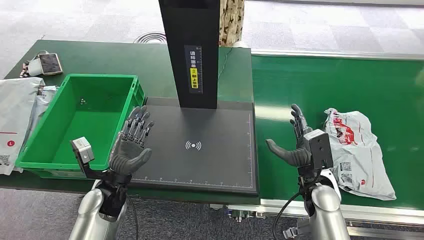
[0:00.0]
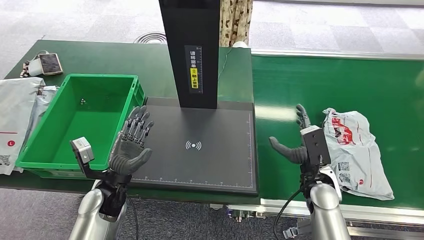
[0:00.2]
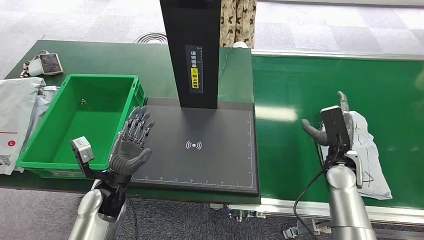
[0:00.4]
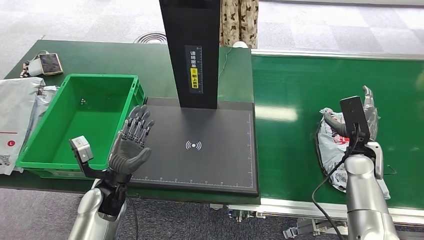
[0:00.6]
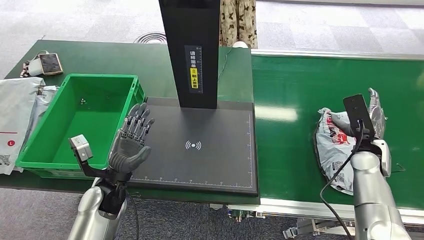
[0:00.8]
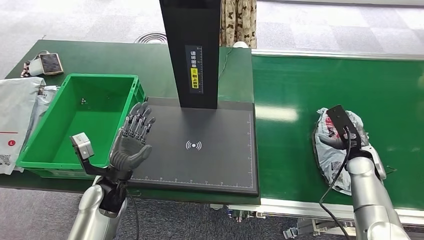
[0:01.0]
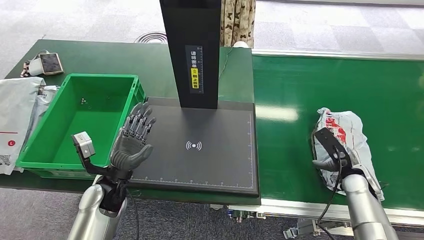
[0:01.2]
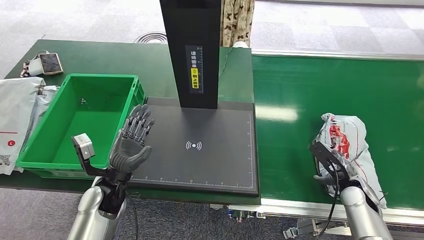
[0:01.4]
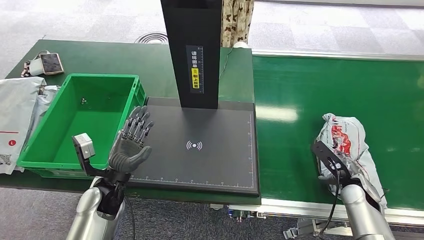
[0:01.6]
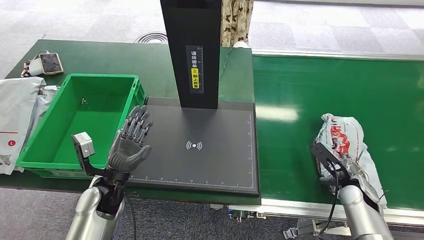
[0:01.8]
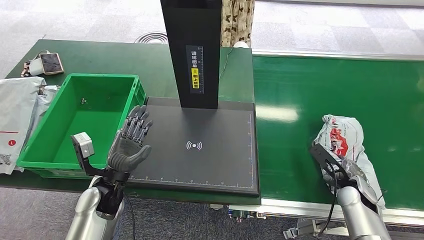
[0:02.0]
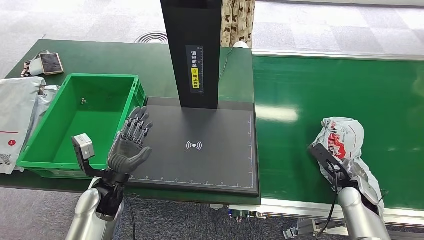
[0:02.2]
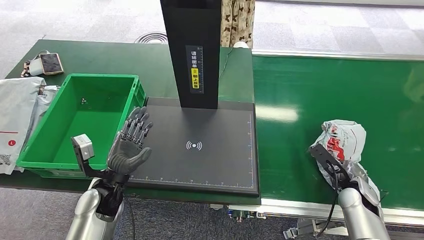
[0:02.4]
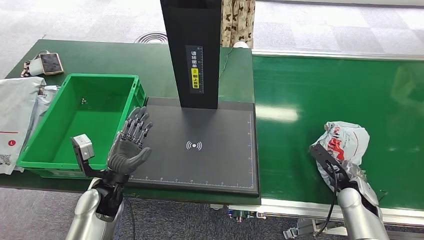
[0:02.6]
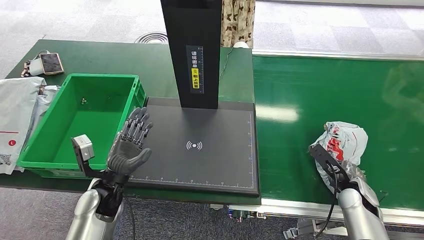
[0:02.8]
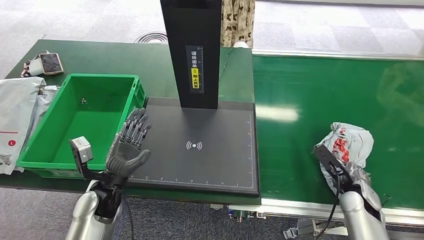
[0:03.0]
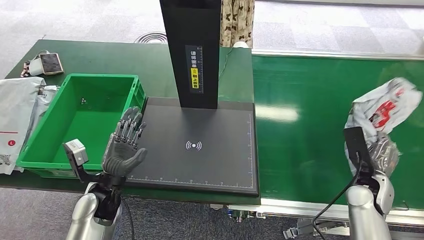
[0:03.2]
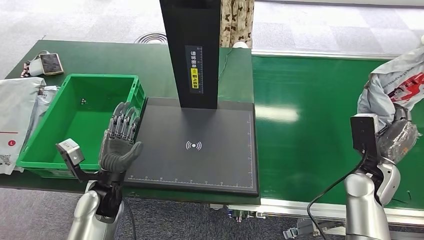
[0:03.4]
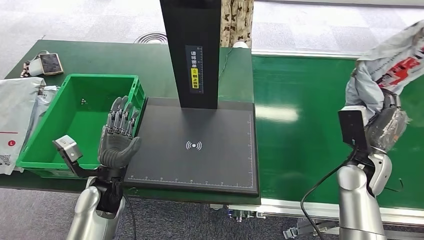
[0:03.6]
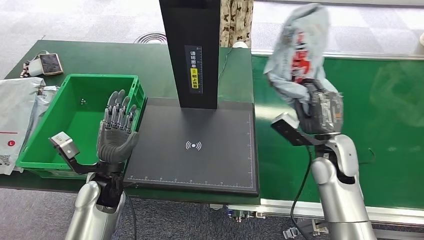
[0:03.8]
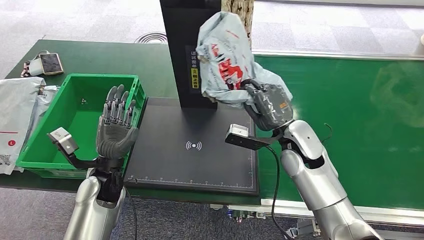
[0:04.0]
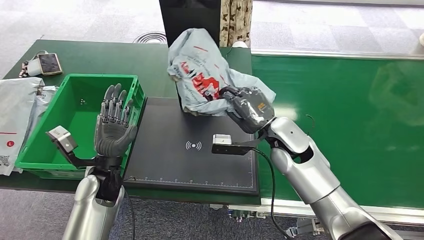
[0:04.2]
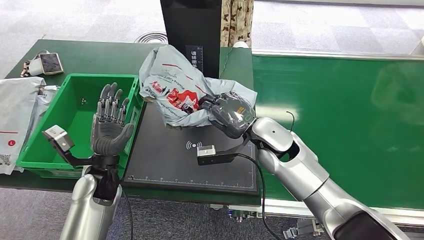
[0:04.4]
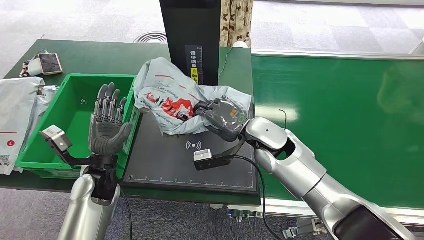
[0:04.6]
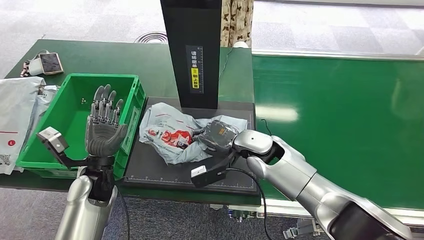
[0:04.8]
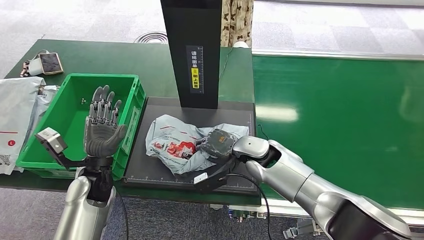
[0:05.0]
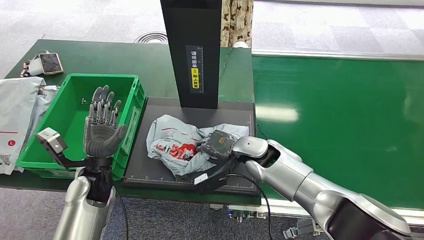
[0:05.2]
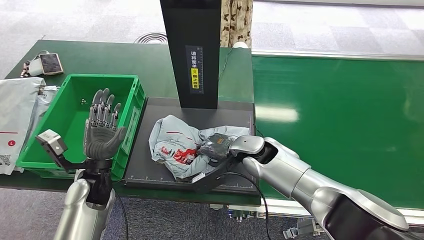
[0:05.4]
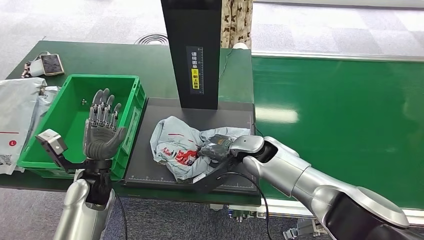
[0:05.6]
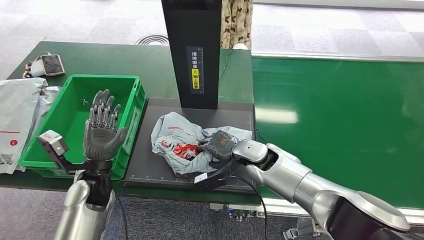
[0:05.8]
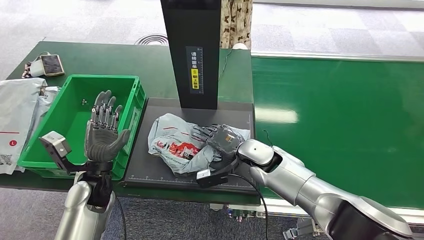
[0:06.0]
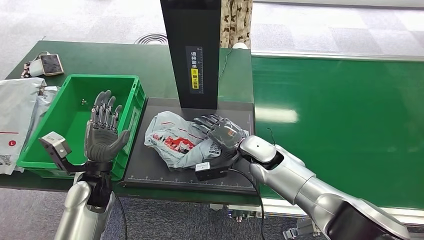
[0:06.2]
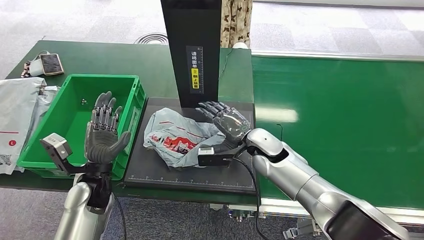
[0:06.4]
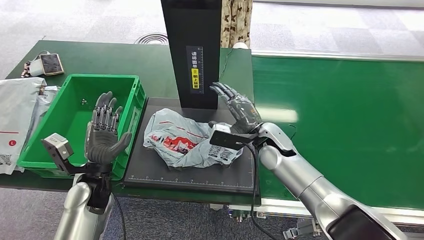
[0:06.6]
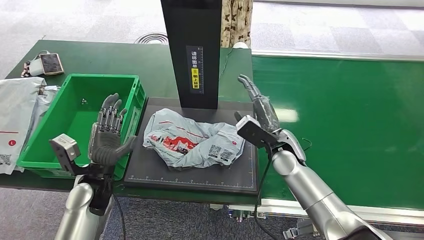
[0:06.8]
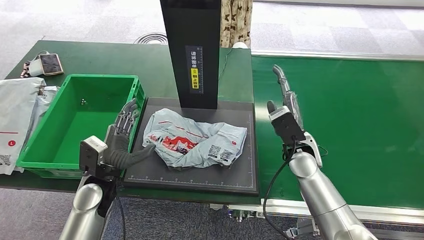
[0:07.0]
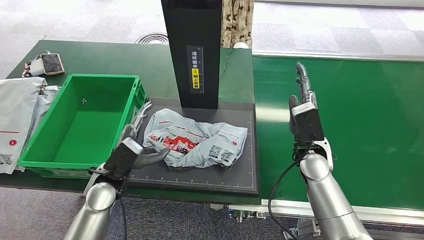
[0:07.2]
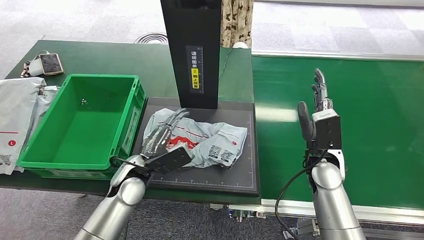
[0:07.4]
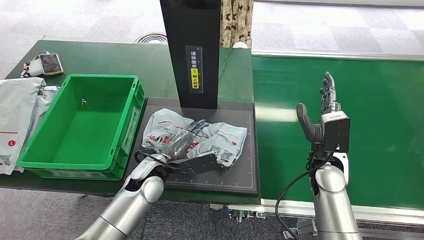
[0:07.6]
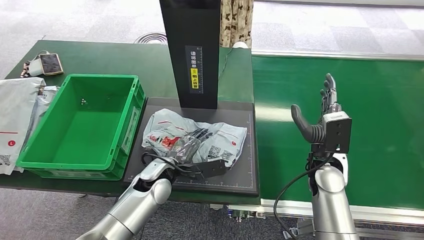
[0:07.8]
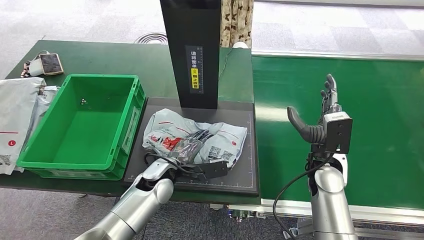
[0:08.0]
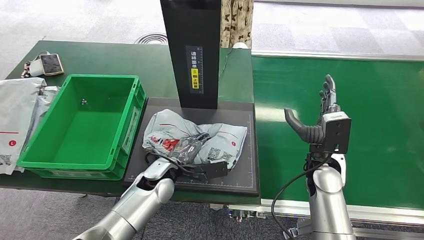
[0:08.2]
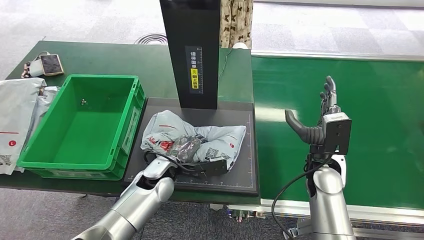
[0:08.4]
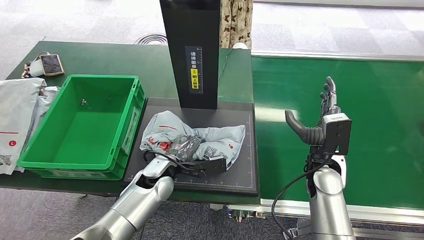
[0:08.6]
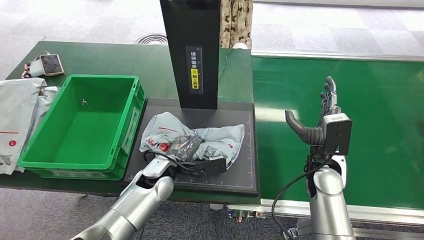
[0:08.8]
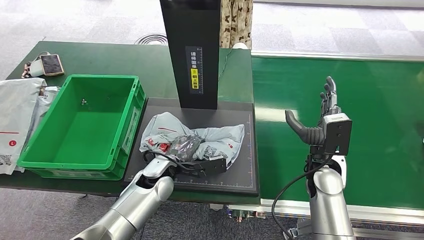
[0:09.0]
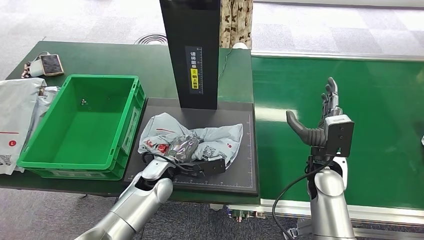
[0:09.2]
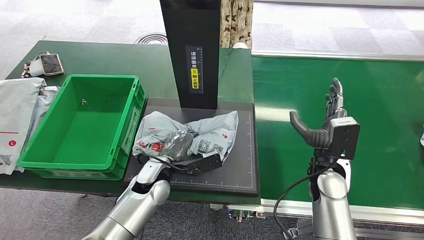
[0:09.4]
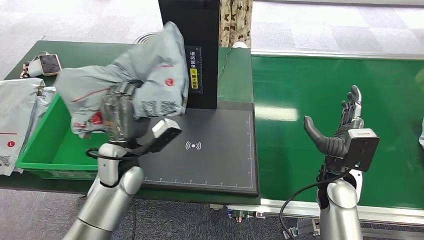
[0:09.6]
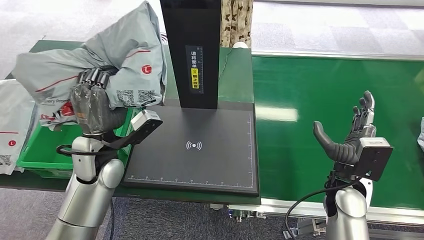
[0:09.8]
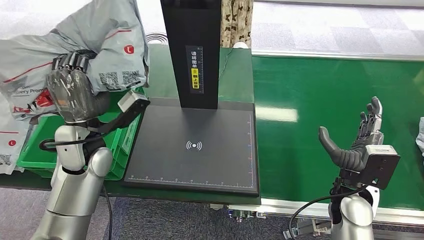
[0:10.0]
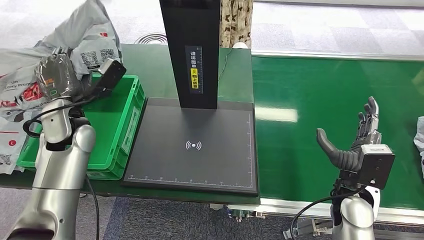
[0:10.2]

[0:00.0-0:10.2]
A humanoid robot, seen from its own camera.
Step, 0:00.0 to 0:03.6: Pick up the package from the conveyor belt.
Step, 0:03.8 to 0:06.8: Place the package onto the inbound machine.
Step, 0:07.2 to 0:09.6: Pick up the package from the inbound machine.
0:01.4 to 0:03.0: The hands make only small movements.
0:07.2 to 0:08.8: The left hand shifts roughly 10 cm to the right.

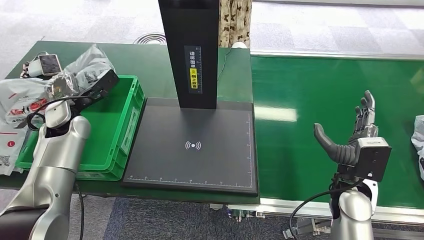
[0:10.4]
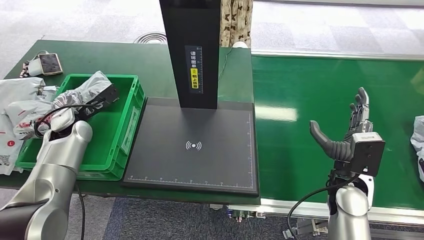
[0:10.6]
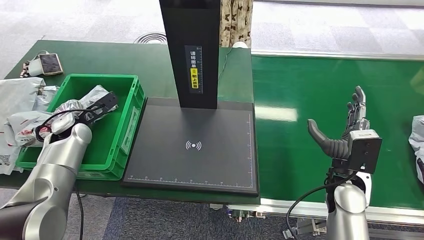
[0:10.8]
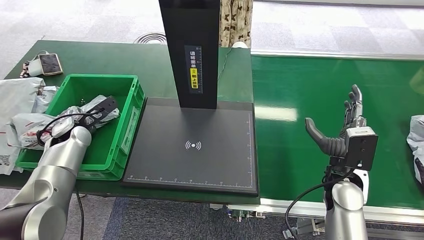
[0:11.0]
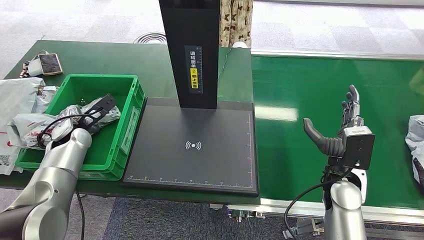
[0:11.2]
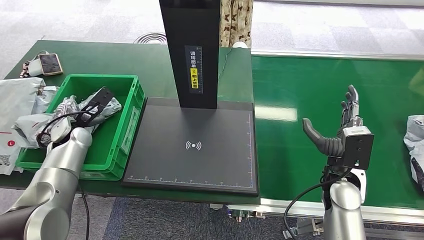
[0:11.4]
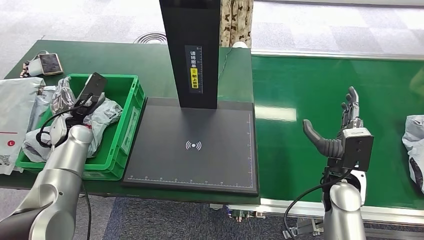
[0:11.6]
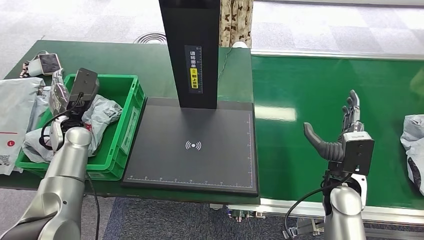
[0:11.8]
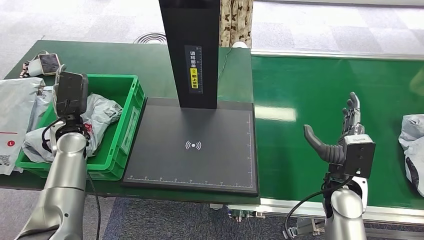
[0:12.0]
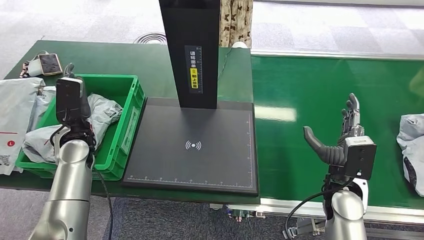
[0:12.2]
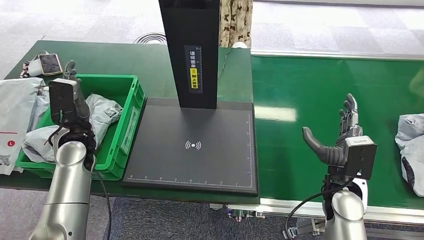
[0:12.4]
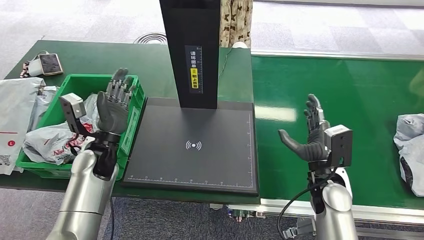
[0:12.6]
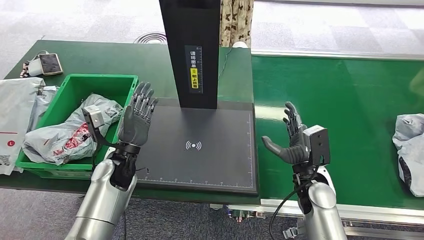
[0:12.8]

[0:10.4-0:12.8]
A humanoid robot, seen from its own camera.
Step, 0:10.4 to 0:12.8: Place the package into the parcel locker.
